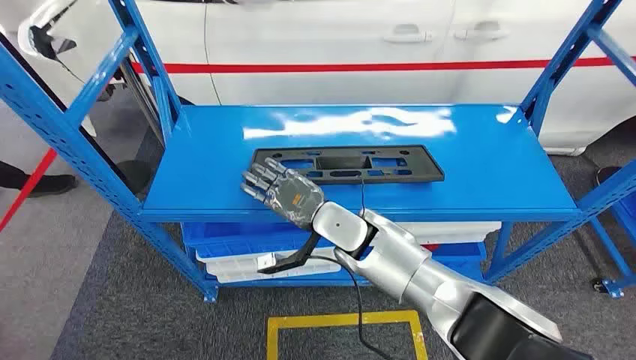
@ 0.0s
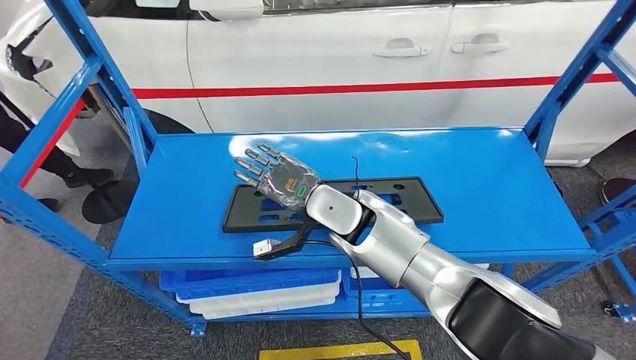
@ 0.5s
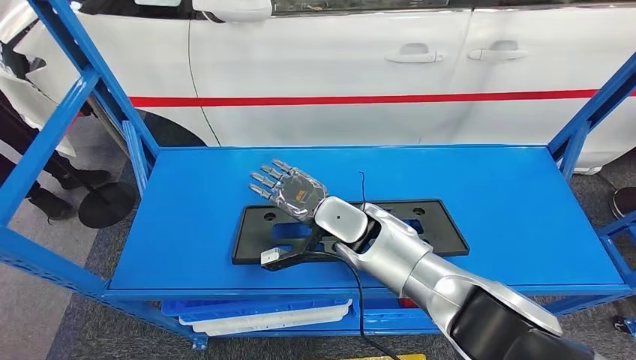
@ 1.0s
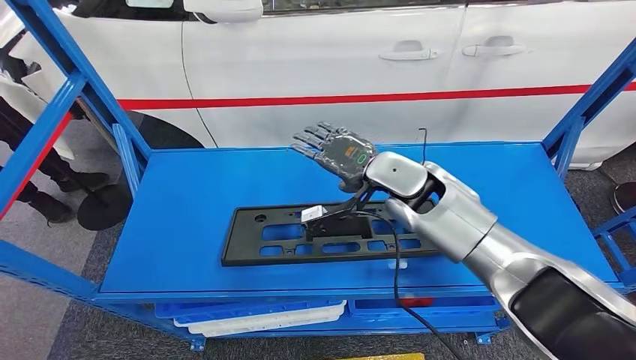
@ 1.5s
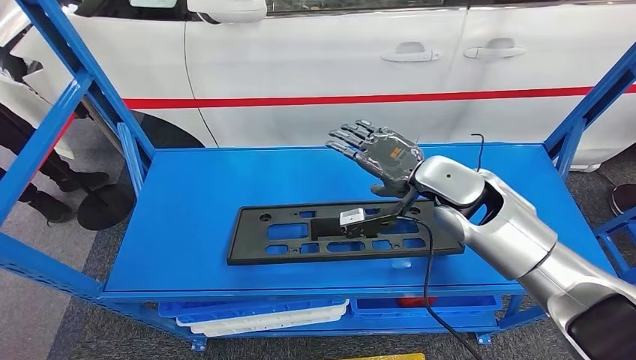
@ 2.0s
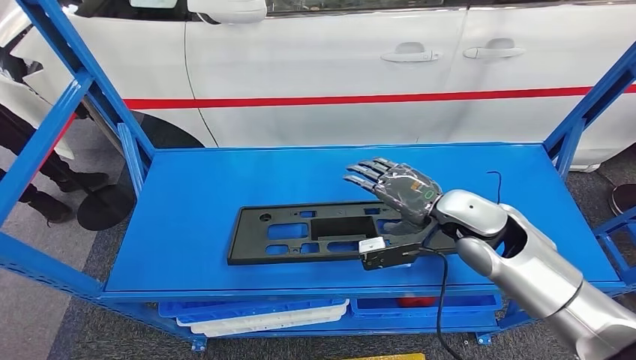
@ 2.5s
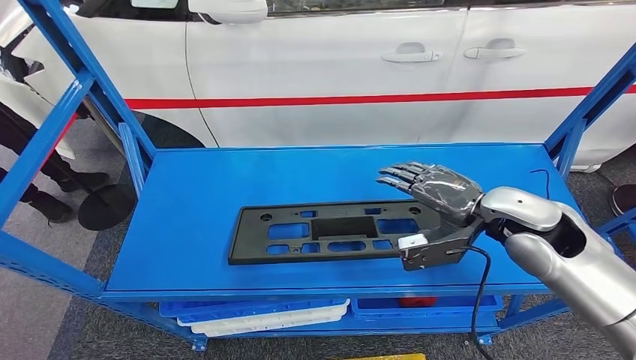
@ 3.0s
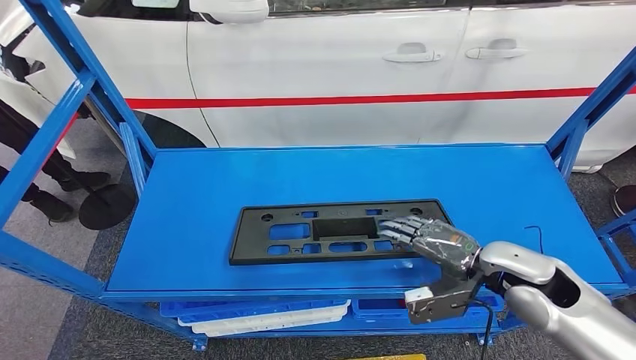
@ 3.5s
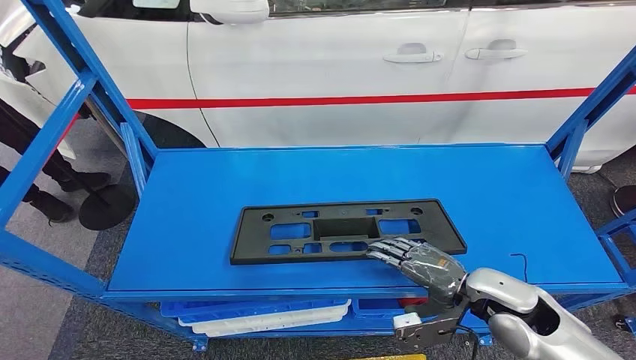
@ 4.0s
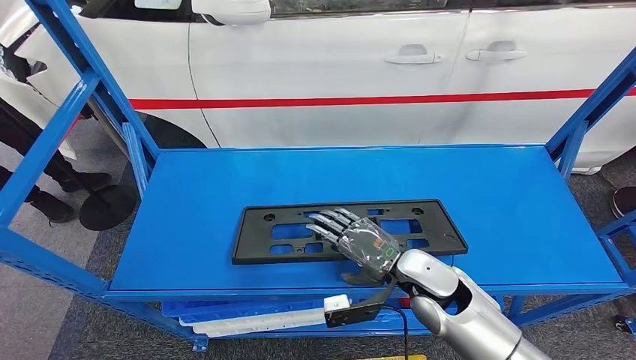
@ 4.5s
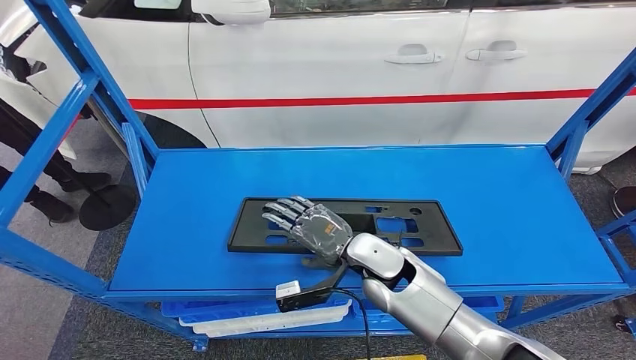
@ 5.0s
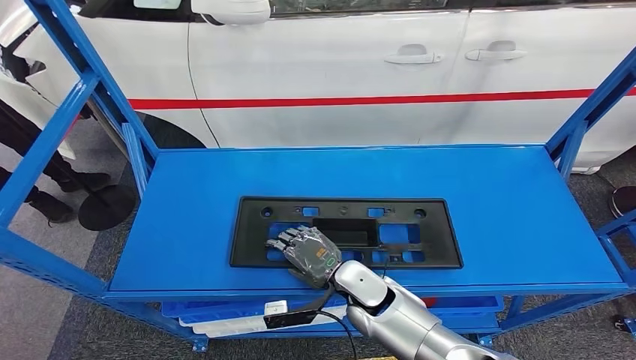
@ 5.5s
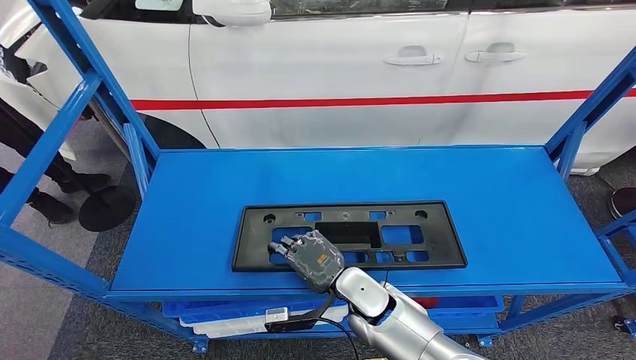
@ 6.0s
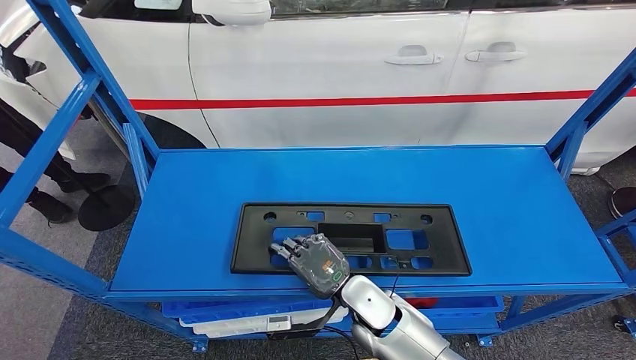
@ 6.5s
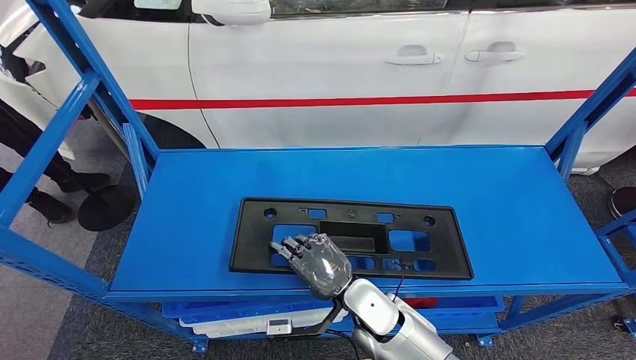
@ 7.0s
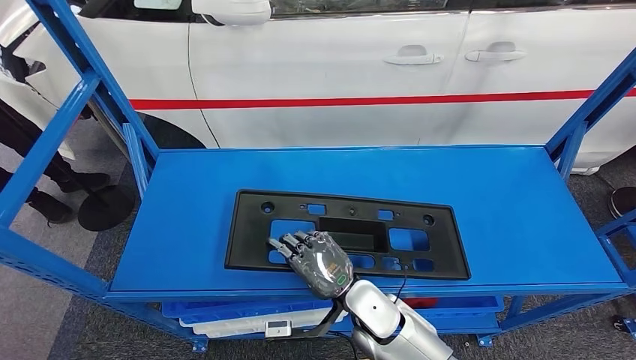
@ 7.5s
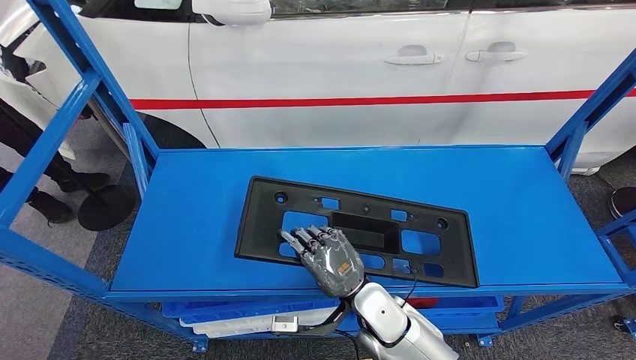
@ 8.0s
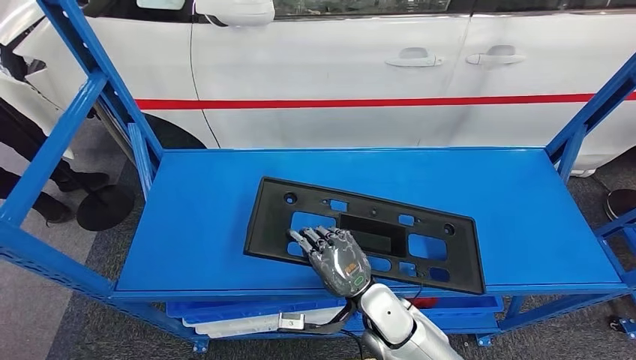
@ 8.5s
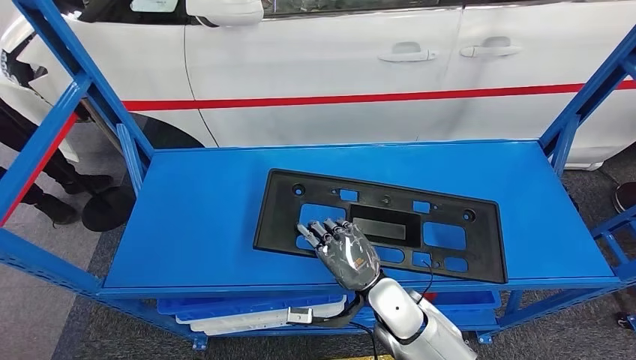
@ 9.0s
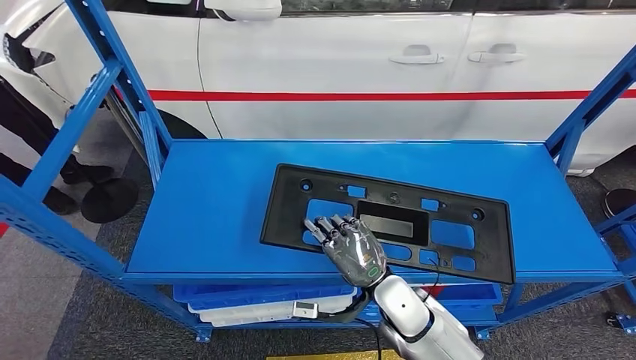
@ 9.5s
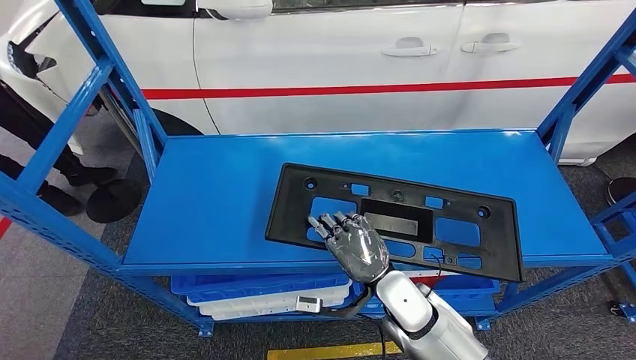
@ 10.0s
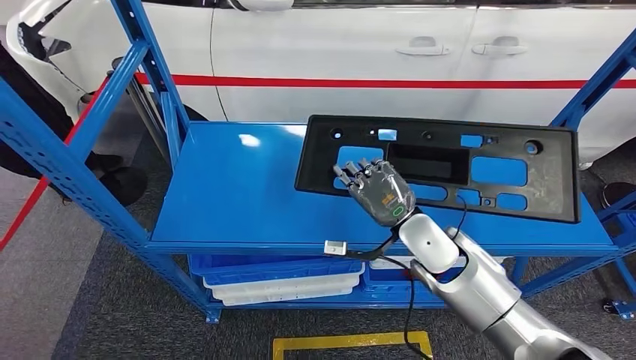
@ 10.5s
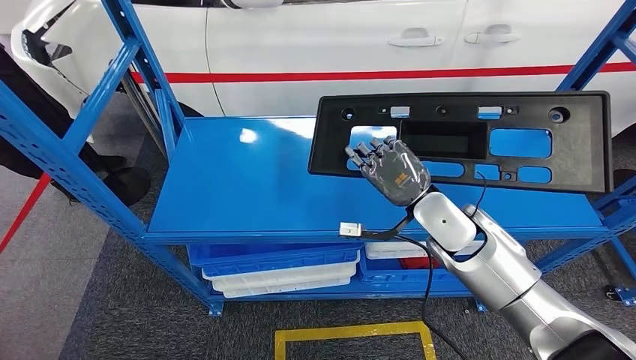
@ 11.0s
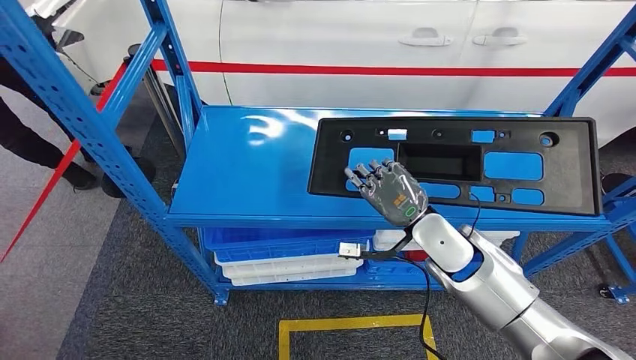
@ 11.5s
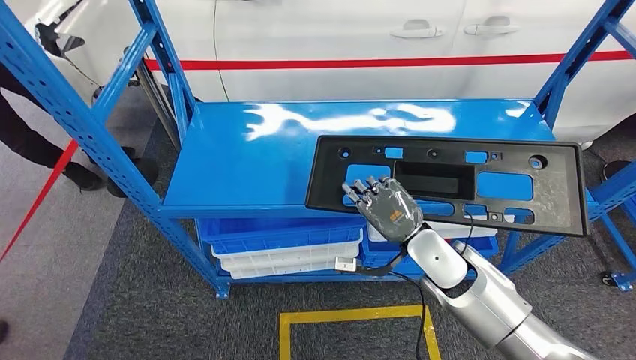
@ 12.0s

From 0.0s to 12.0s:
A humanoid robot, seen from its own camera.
Step, from 0.0s to 9.5s: Pick up the large material from the shelf.
From 2.0s to 4.0s: The right hand goes approximately 20 cm backward, downward and to the right.
From 4.0s to 6.0s: The right hand is displaced to the left by approximately 20 cm.

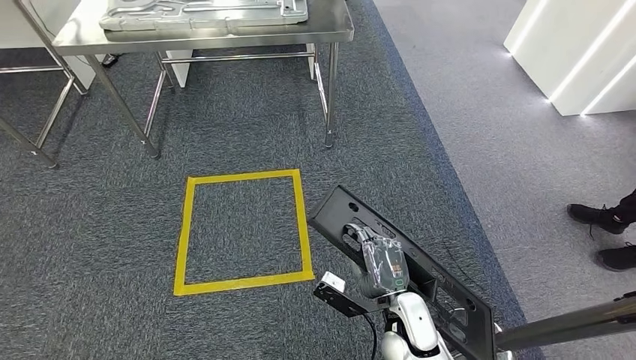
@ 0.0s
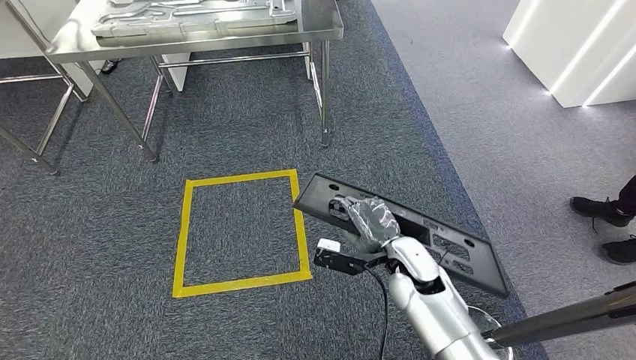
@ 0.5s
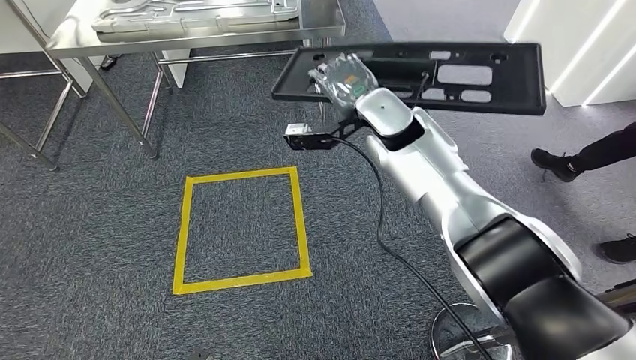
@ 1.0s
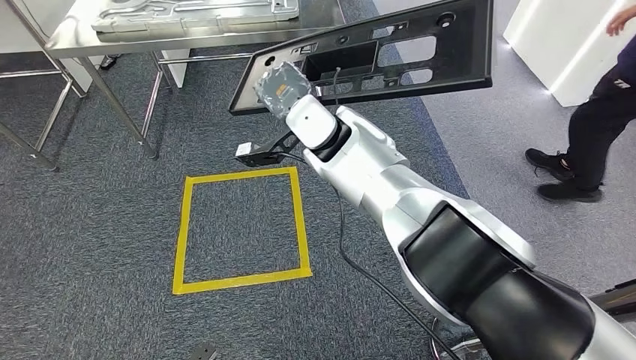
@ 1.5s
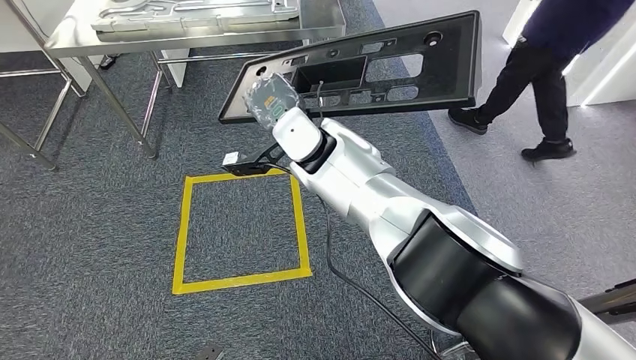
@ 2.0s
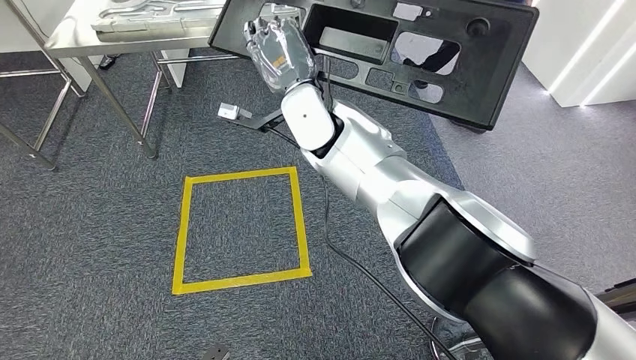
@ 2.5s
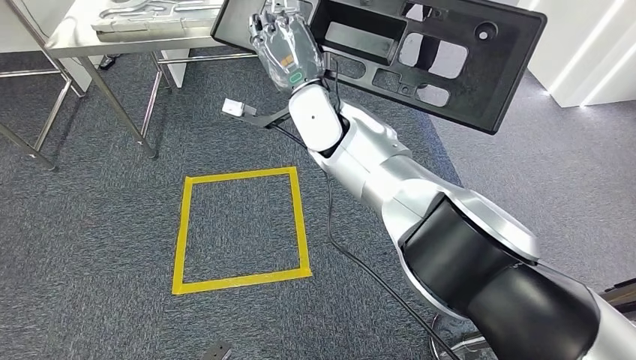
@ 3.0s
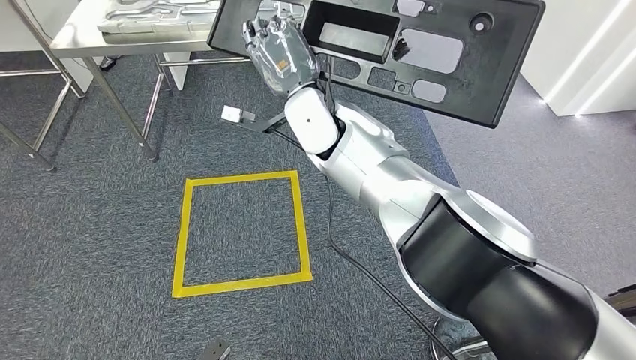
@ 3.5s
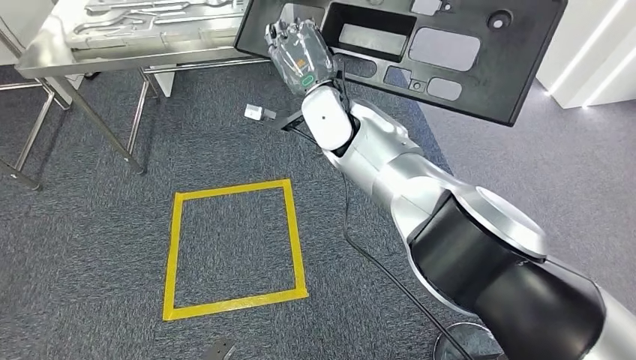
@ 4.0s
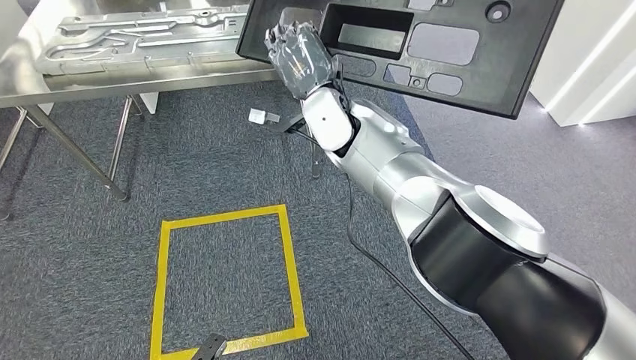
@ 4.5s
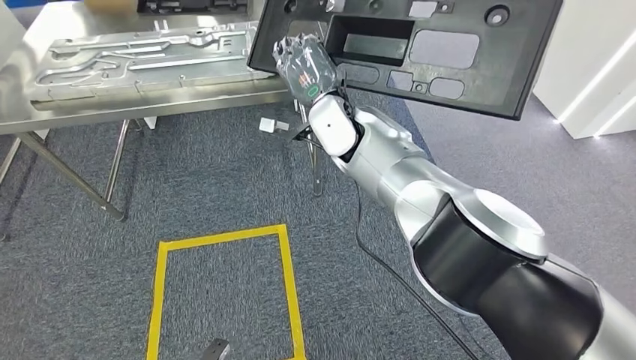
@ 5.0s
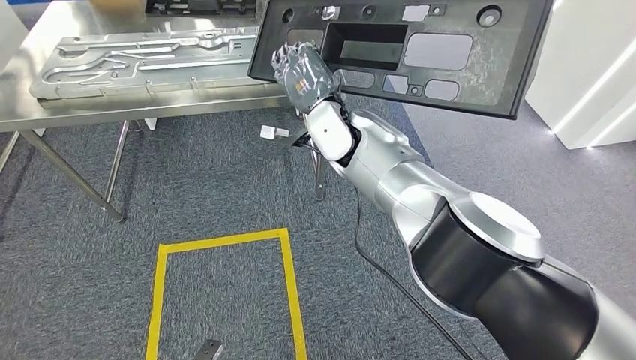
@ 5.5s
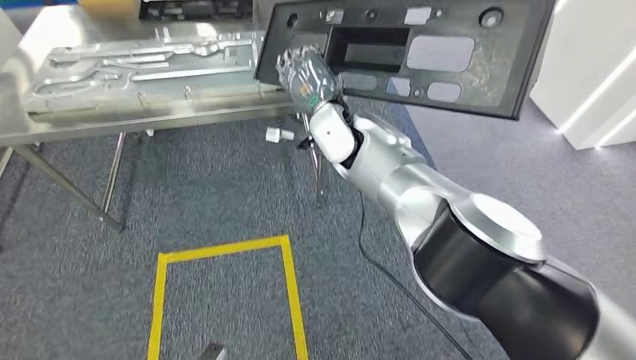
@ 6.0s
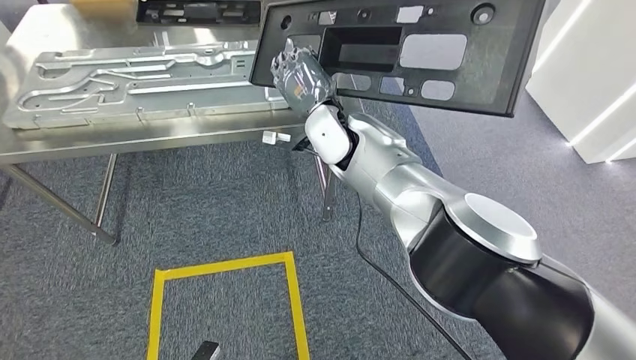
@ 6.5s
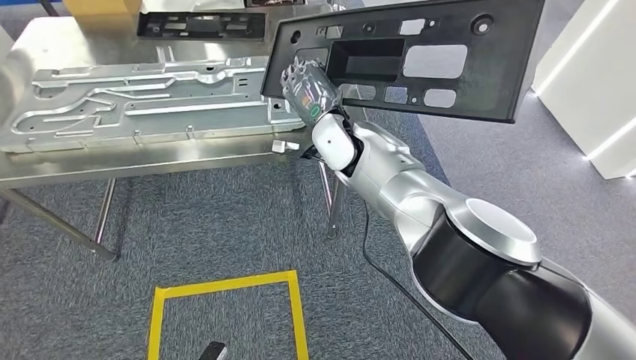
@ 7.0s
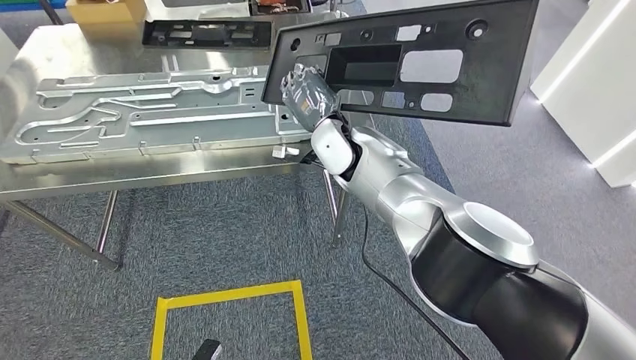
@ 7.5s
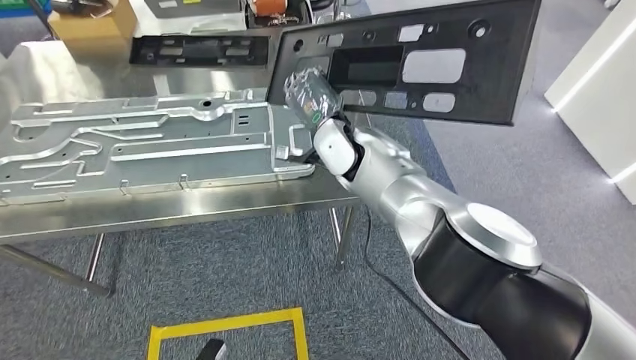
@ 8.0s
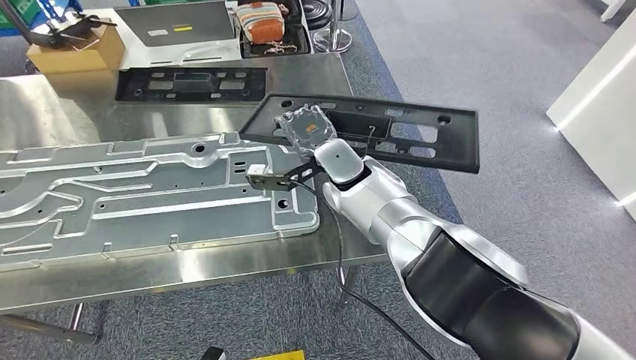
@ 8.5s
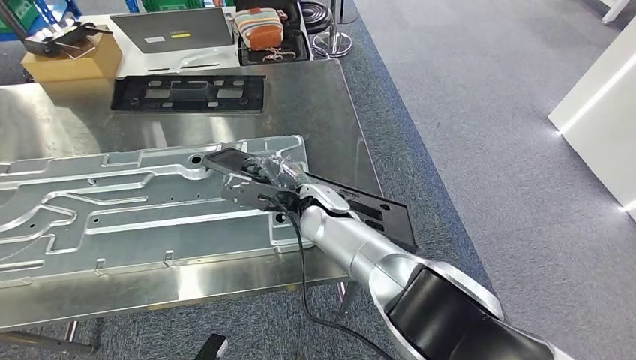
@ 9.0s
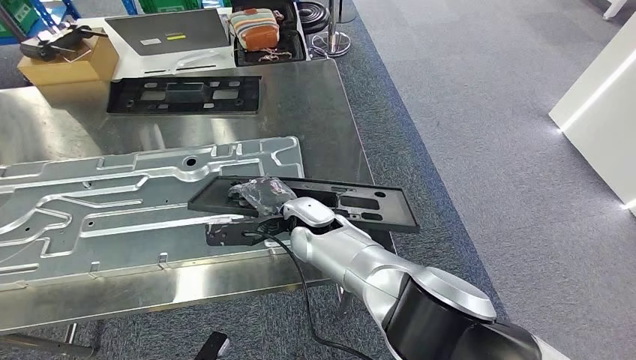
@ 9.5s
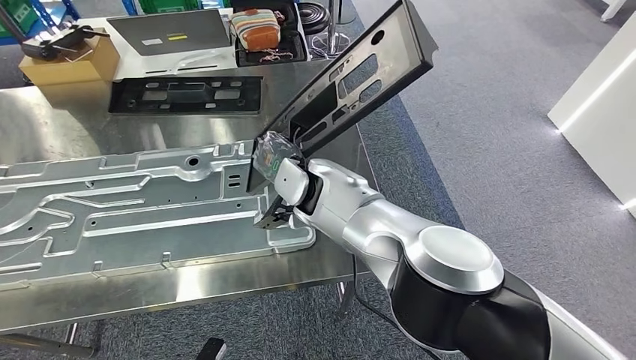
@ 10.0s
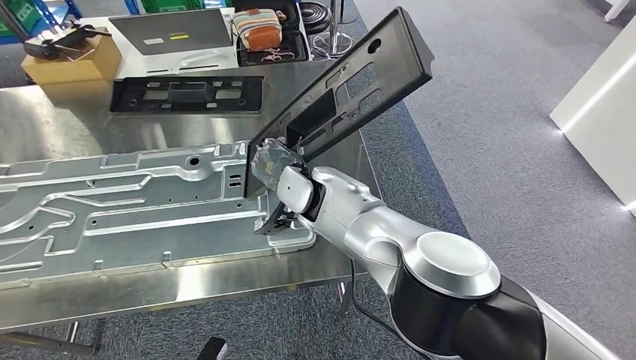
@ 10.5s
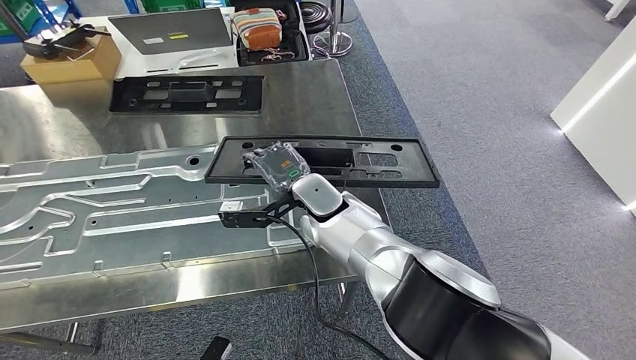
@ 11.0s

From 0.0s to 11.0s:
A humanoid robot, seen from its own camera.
Step, from 0.0s to 8.5s: Move the large material to the front of the workbench.
